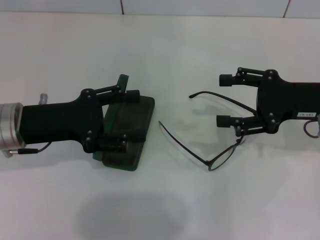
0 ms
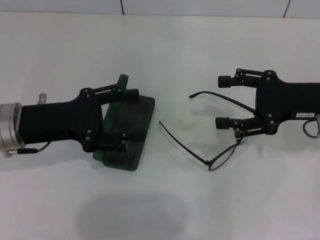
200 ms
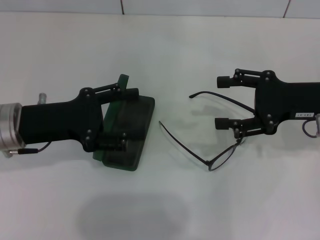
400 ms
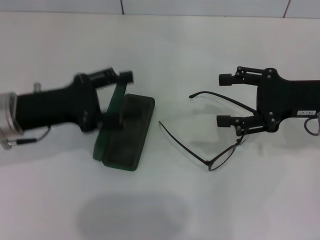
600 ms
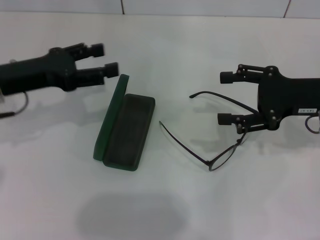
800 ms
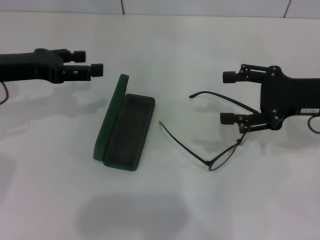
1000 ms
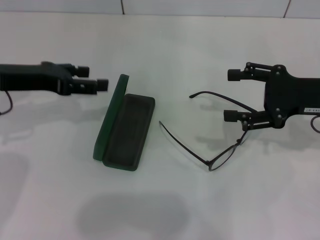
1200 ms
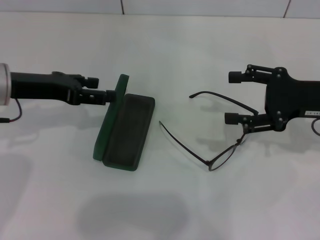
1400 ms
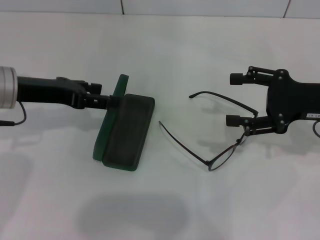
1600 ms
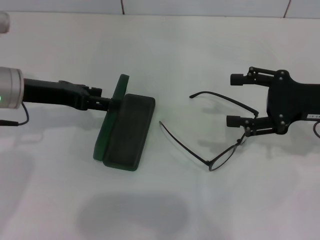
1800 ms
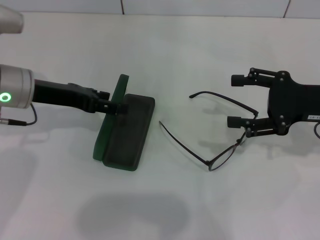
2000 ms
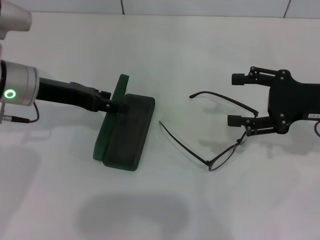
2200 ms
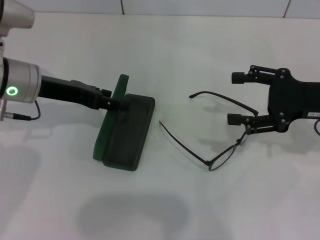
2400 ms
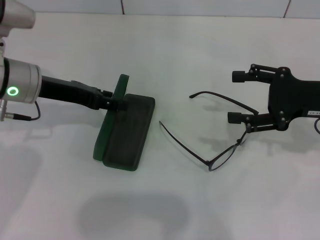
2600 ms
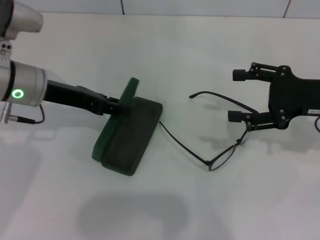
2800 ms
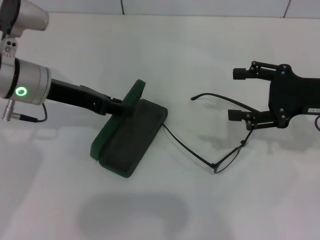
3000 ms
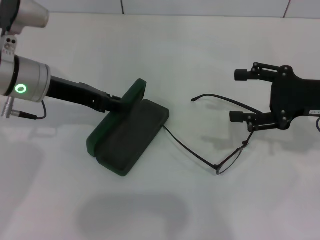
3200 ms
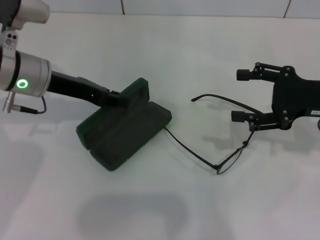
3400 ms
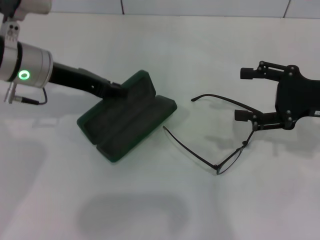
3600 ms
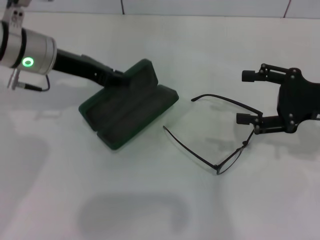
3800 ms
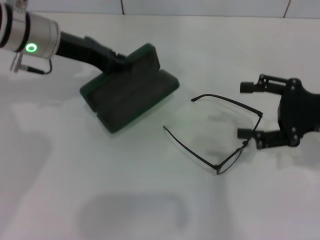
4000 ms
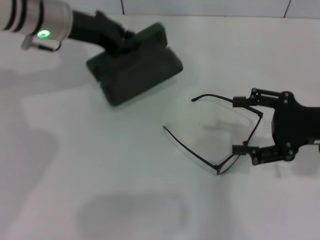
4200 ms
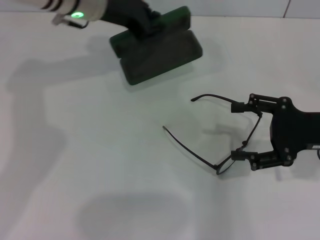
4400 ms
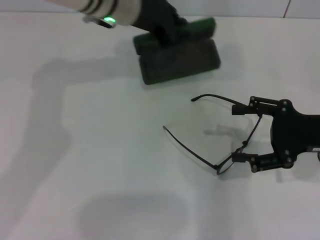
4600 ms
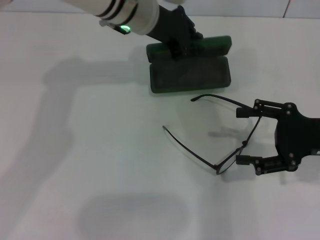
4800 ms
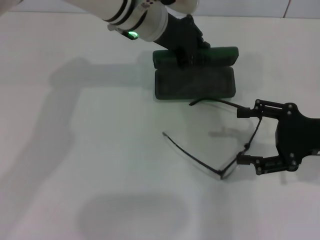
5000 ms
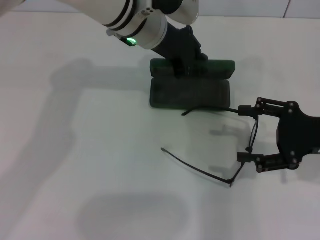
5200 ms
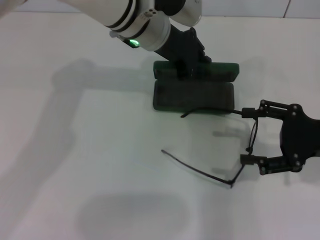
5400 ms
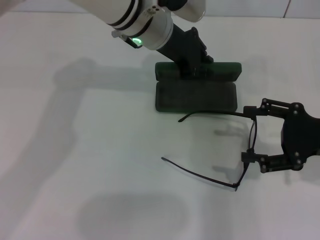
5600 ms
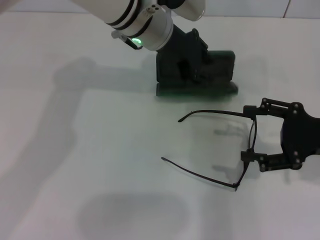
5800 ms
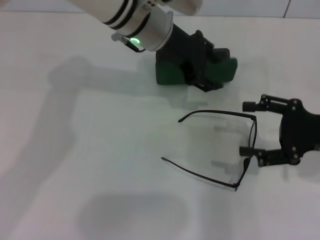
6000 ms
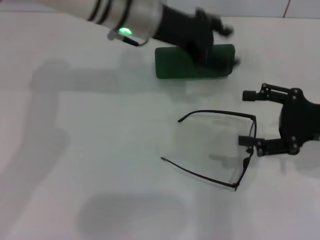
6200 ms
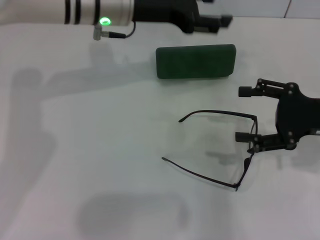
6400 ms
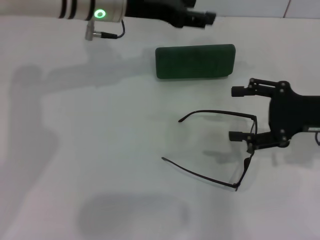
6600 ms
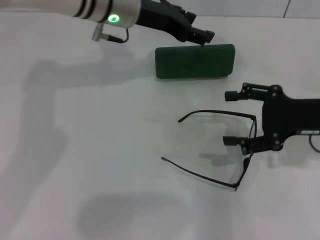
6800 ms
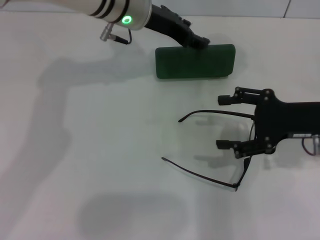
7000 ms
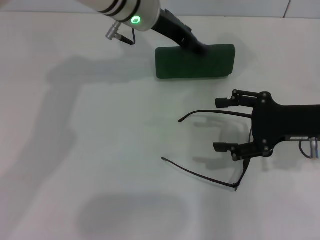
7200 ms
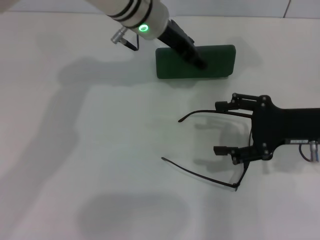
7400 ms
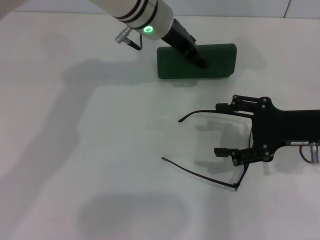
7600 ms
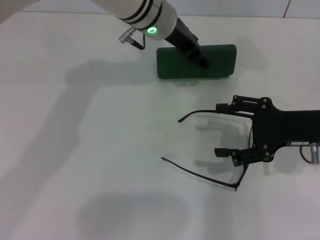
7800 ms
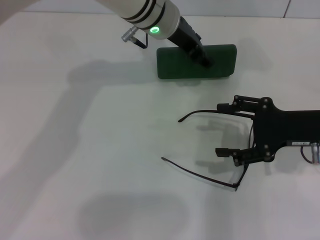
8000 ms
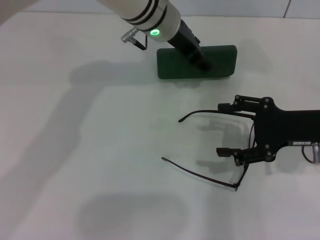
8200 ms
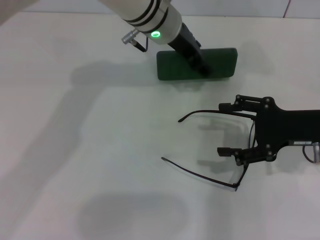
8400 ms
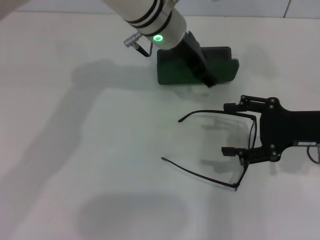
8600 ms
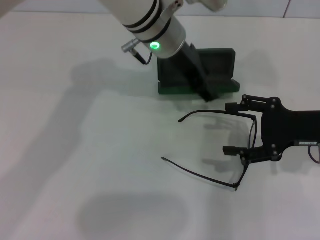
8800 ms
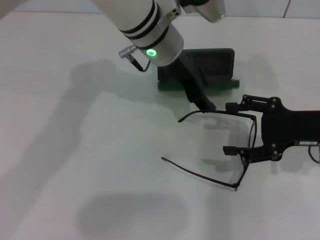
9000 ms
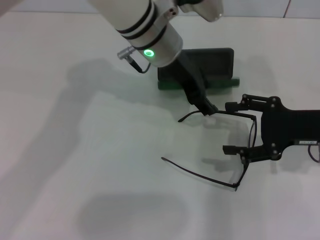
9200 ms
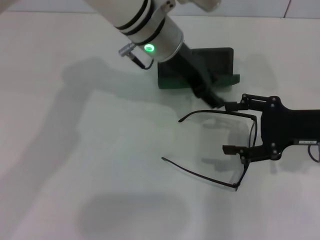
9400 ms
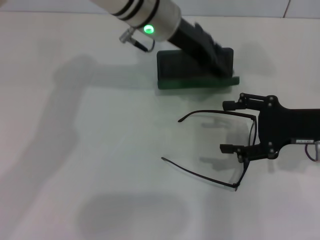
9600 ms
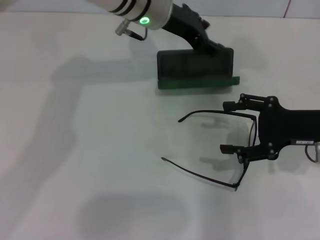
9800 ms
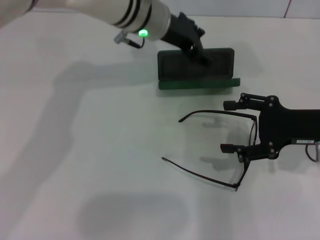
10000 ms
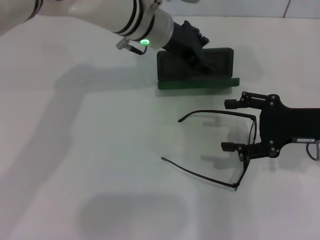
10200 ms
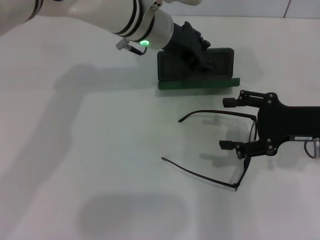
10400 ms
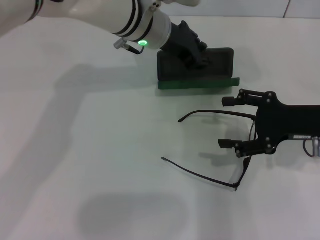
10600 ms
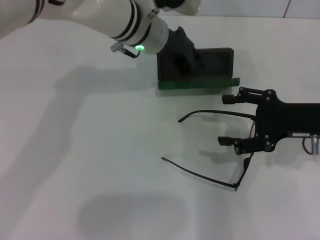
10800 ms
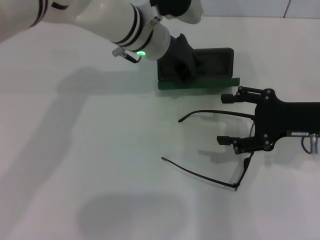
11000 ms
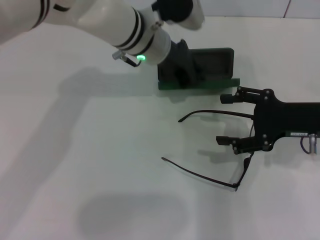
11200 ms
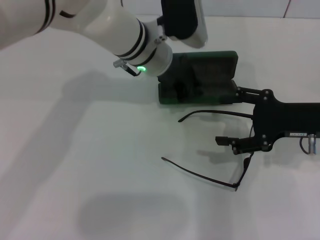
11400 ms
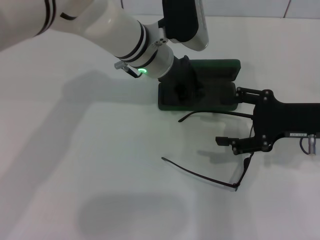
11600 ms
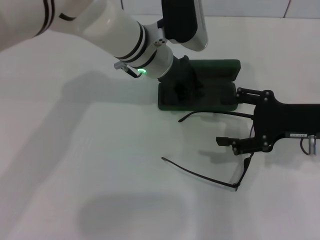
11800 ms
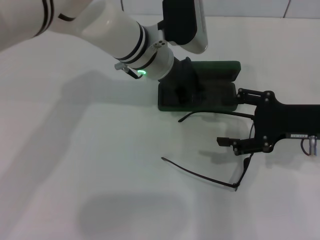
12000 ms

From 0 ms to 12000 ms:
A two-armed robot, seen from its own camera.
Step, from 0 ms to 3000 ms: Grab the glasses case with your left hand.
Step, from 3200 ms to 12000 ms: Place the glasses case in the center of the table with your left hand.
From 0 ms to 1600 ms: The left gripper heads forward, covering roughly 5 cm.
From 1600 ms to 3000 ms: The grippers stay close to where they were, moving slightly.
From 3000 ms to 4400 ms: The left gripper heads forward, to the right and upward, covering some 15 cm, and closes up.
From 4400 ms to 6000 ms: The left gripper moves to the right, about 10 cm, and opens its fingers.
From 6000 ms to 7600 ms: The left gripper travels to the left and back again, about 5 cm each way.
From 10400 ms to 12000 ms: The left gripper closes its fingers.

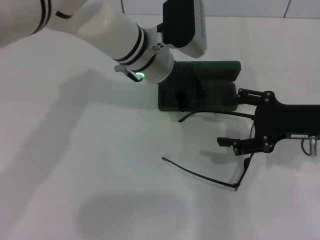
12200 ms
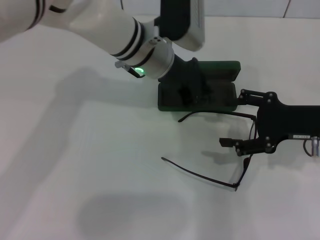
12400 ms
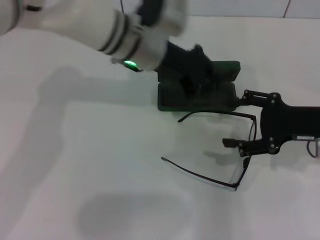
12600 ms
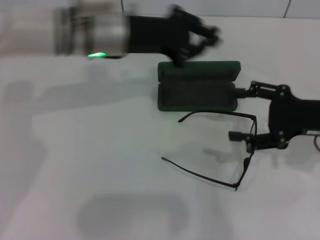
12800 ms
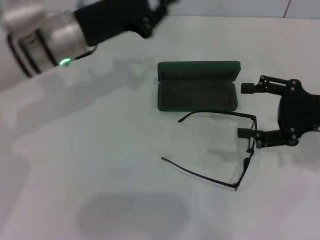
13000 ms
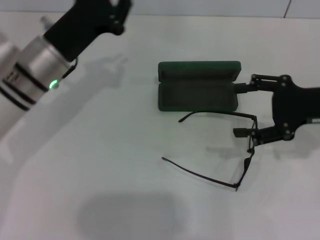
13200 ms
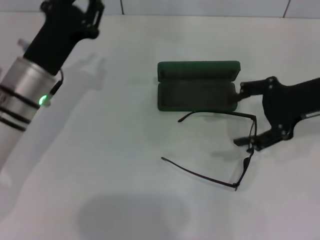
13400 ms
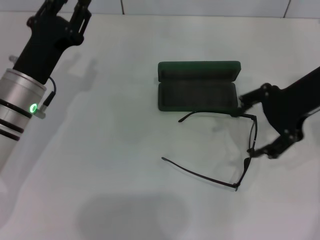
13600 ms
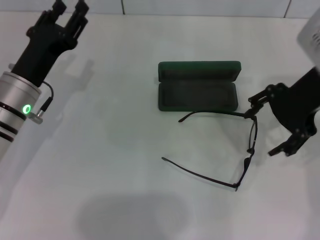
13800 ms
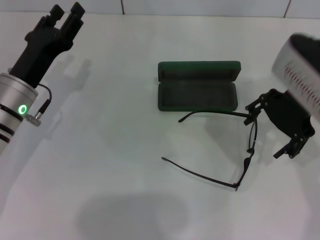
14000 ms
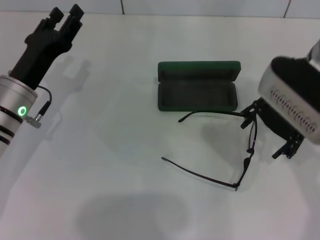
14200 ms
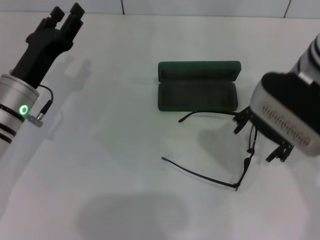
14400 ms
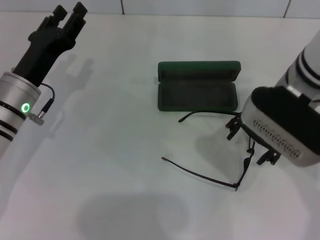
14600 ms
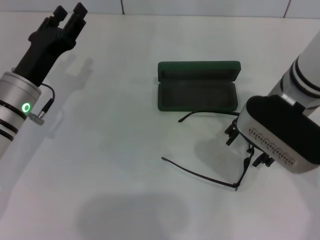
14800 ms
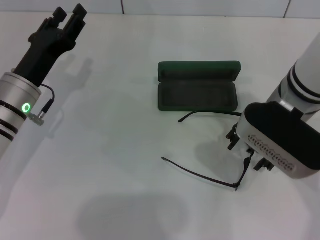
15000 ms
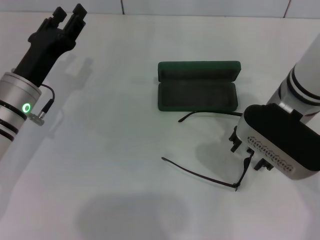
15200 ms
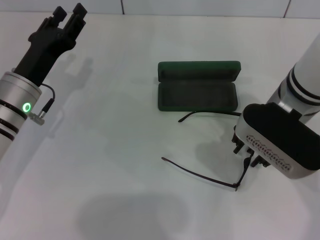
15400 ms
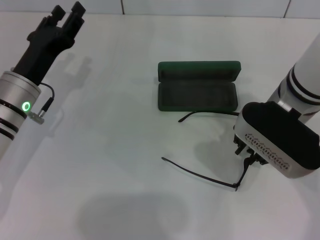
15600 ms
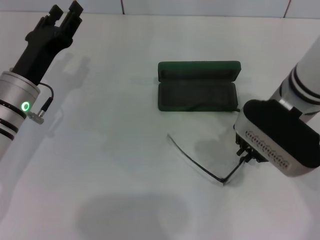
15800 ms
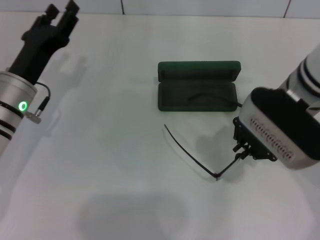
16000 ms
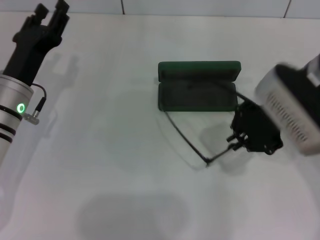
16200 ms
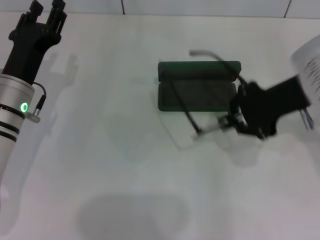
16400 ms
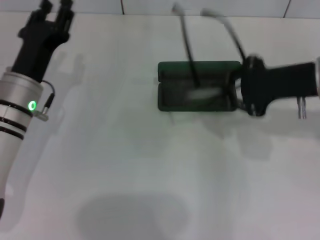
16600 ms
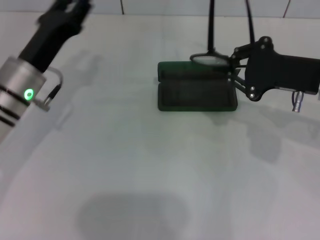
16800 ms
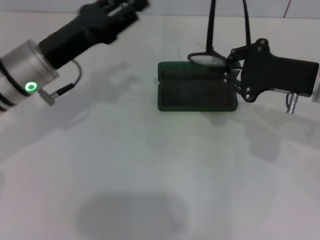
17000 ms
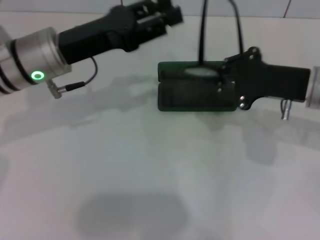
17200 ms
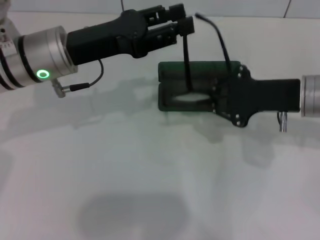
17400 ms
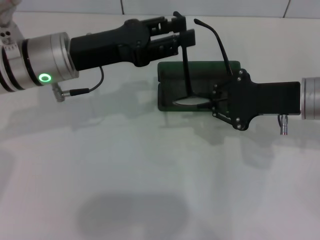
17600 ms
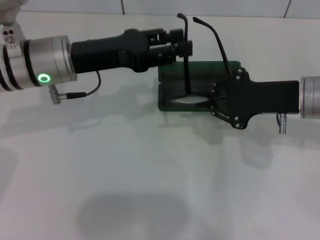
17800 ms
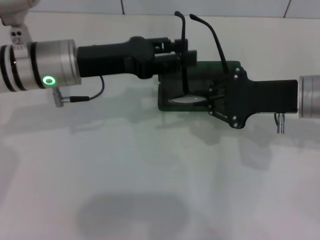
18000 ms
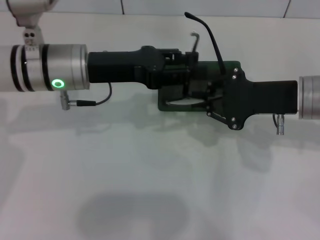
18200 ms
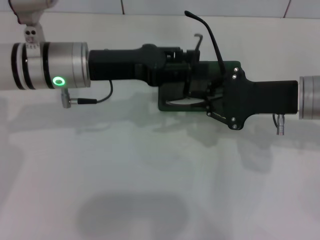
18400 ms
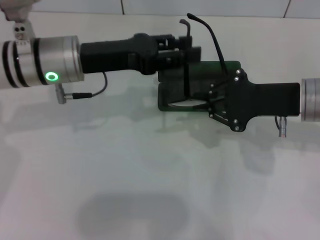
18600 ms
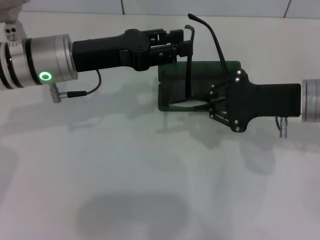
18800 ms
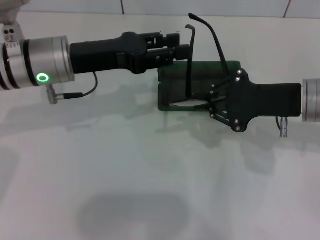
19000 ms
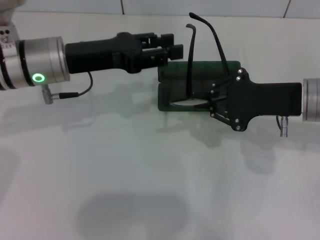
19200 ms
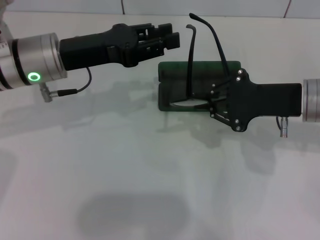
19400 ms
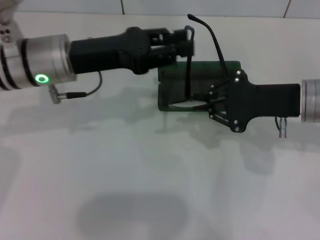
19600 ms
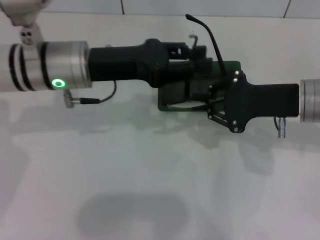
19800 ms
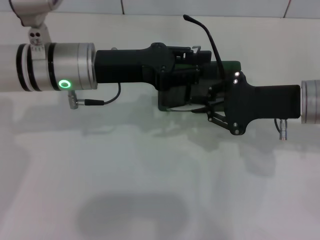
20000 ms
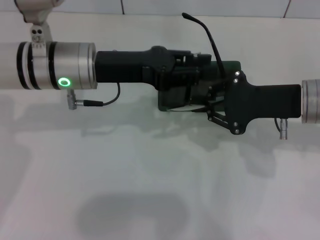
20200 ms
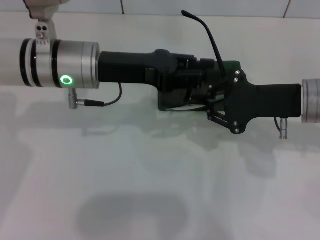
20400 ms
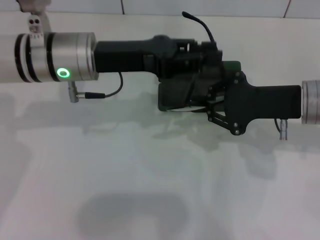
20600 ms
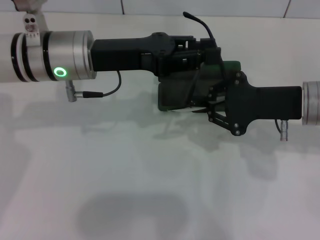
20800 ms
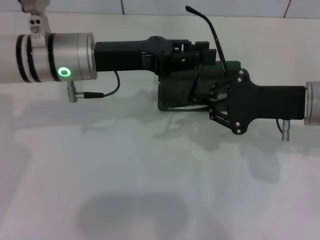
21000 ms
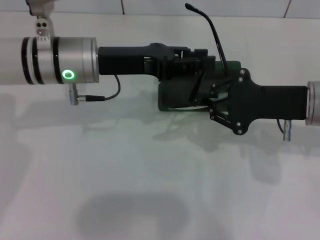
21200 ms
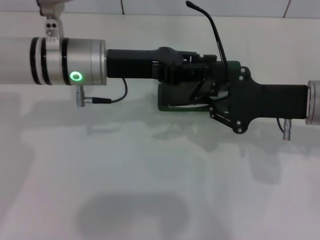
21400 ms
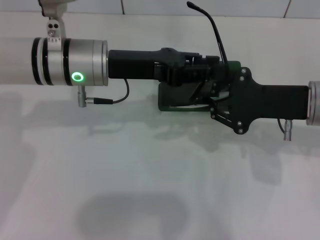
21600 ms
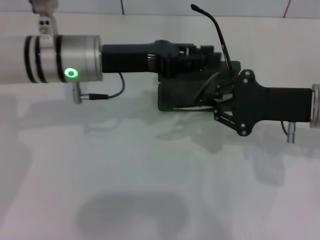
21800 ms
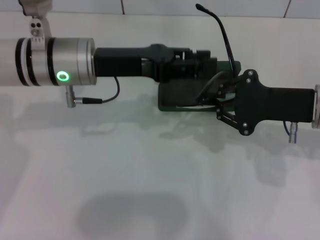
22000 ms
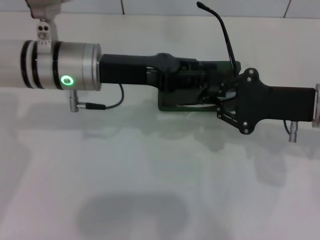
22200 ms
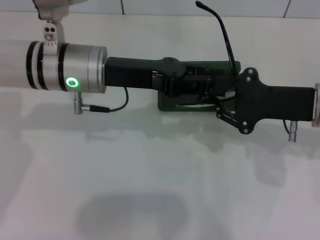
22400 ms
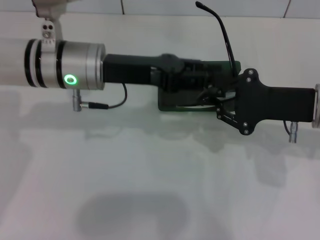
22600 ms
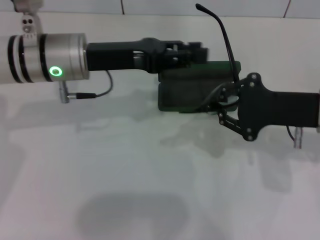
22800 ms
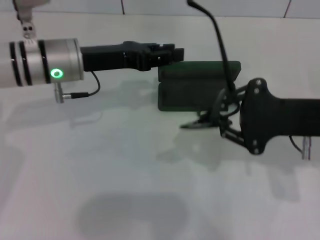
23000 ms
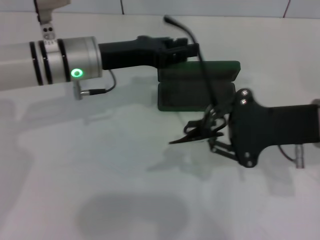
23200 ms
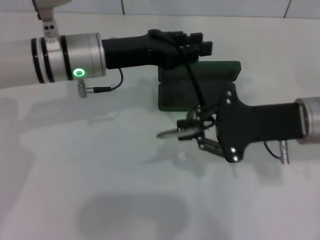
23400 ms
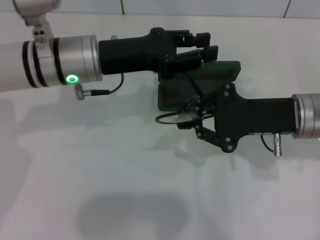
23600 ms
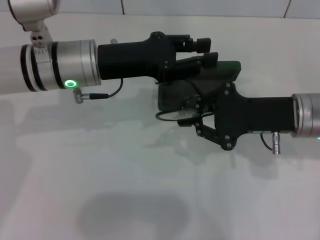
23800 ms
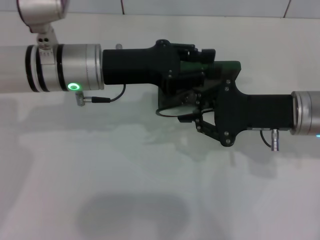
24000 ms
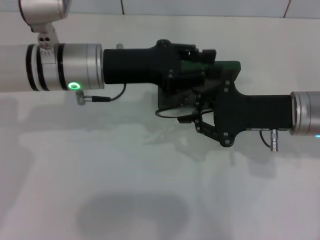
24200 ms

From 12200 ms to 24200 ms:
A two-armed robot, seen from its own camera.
Step, from 12200 ms to 15600 ms: Grab the eyeglass frame with your right hand.
Step, from 15800 ms to 24000 ms: Fold the frame with your left hand.
From 12200 ms to 13800 ms: The right gripper shifts about 15 cm upward and to the left, while the left gripper goes approximately 20 cm to the left and backward, and opens up.
From 13800 ms to 15200 ms: The right gripper heads downward and to the left, covering about 10 cm.
From 15200 ms to 16600 ms: The right gripper is displaced to the right by some 10 cm, and closes.
From 16600 ms to 18200 ms: The left gripper moves upward and to the right, approximately 10 cm.
From 18200 ms to 22600 ms: The grippers move only a little.
